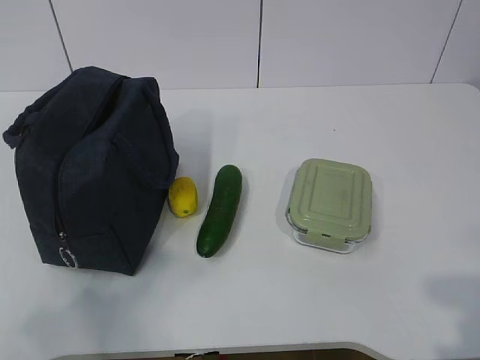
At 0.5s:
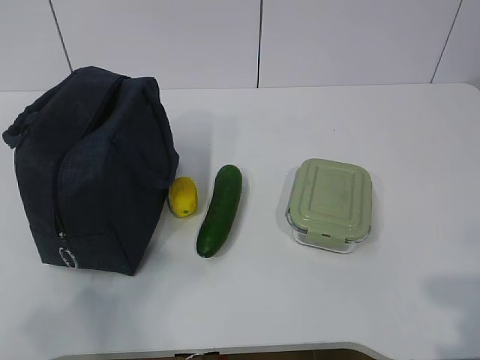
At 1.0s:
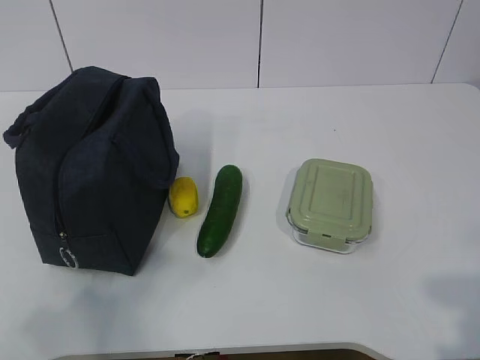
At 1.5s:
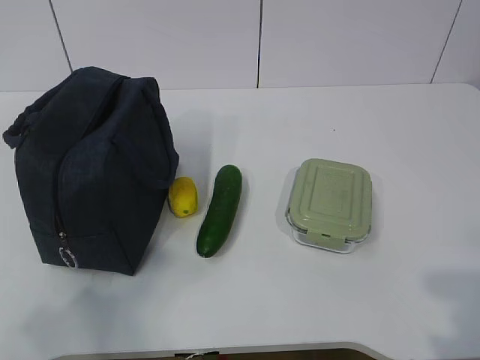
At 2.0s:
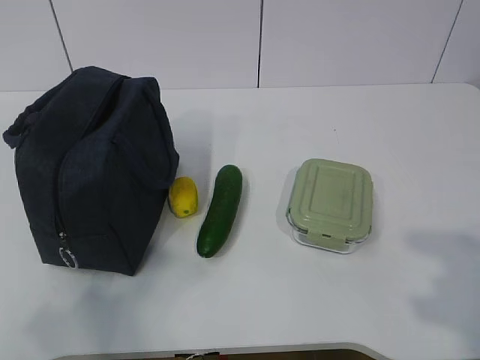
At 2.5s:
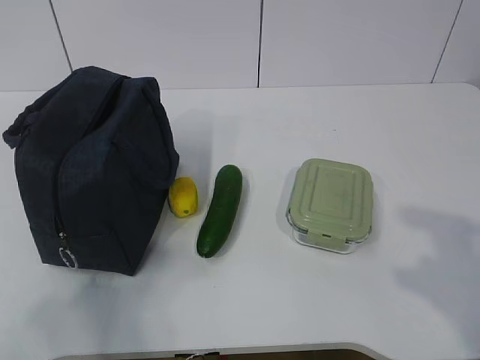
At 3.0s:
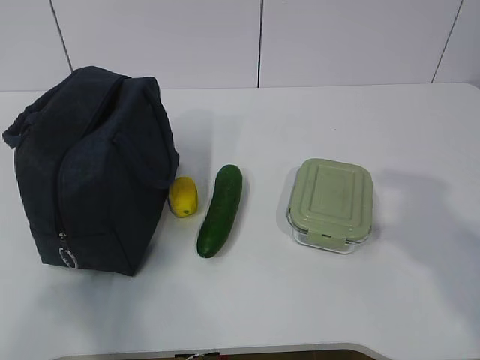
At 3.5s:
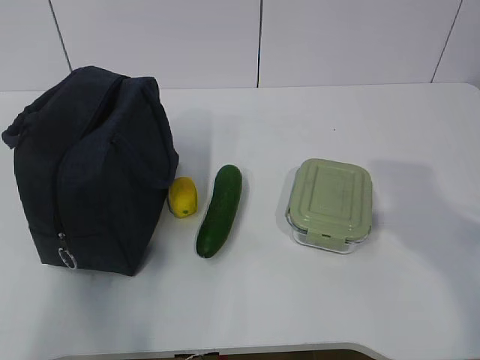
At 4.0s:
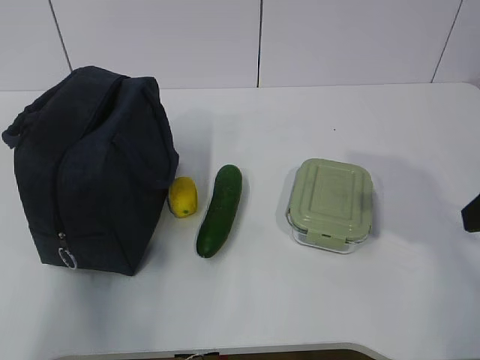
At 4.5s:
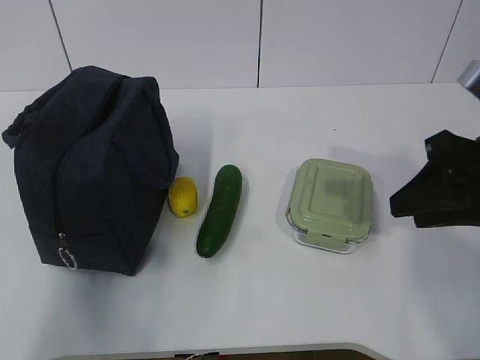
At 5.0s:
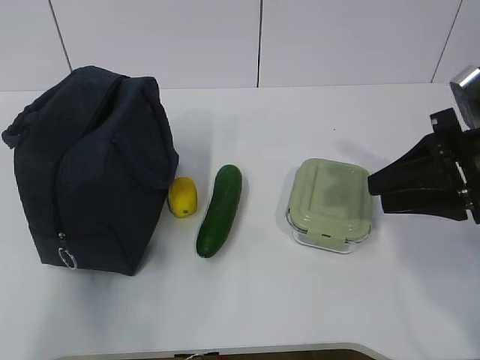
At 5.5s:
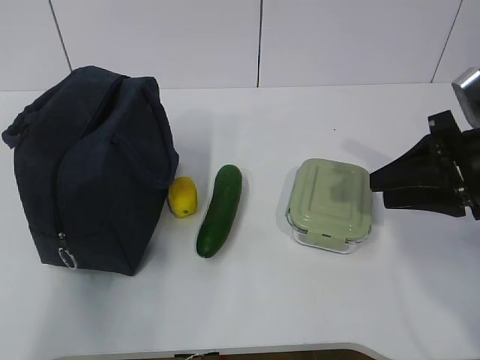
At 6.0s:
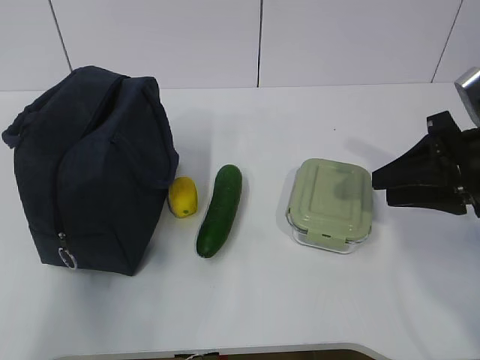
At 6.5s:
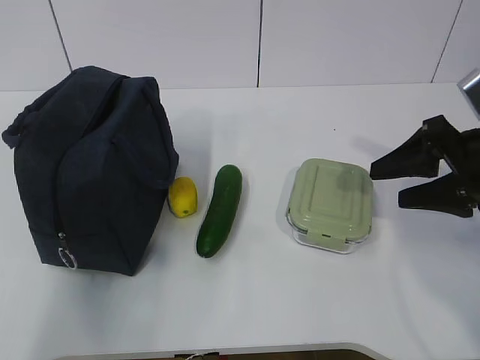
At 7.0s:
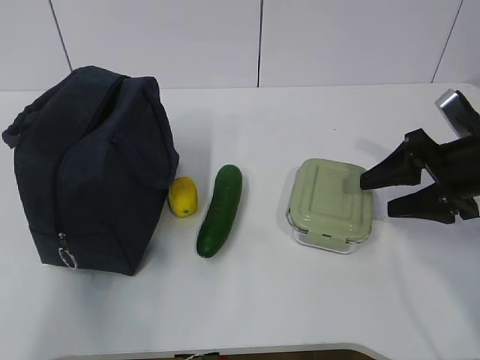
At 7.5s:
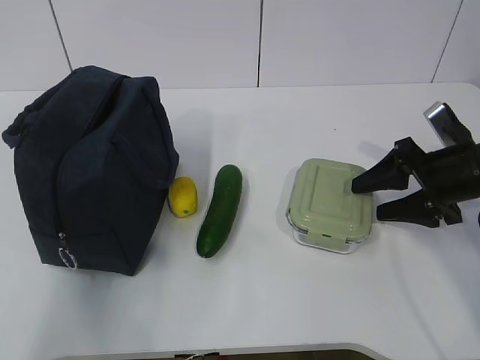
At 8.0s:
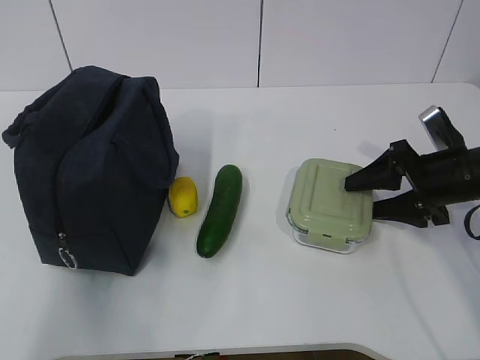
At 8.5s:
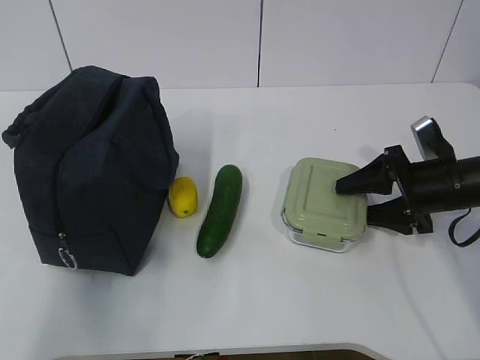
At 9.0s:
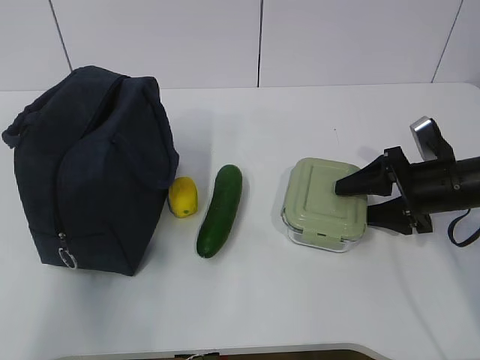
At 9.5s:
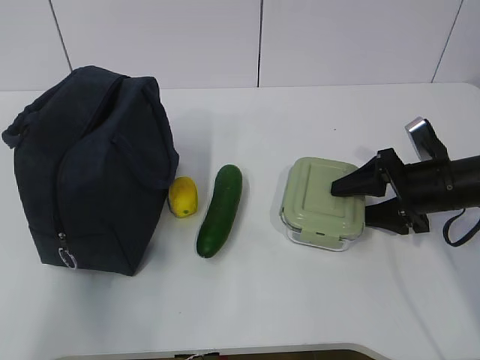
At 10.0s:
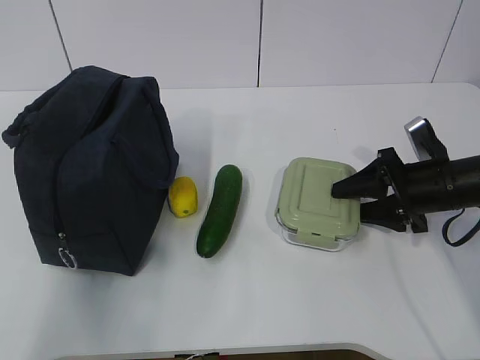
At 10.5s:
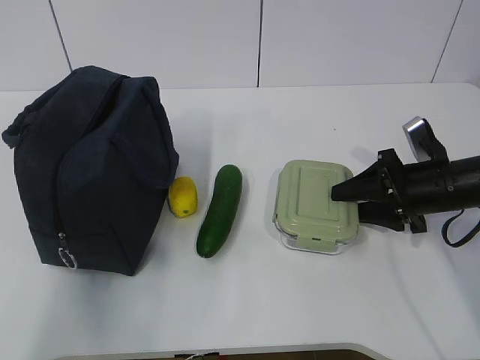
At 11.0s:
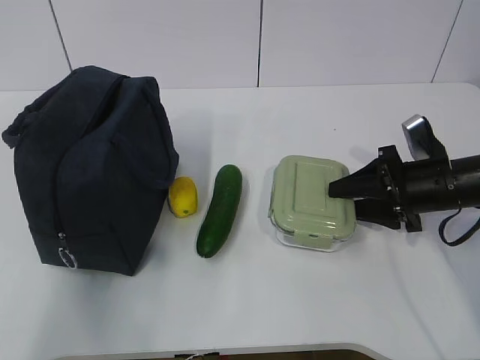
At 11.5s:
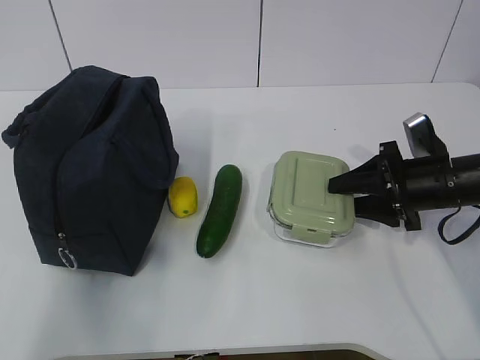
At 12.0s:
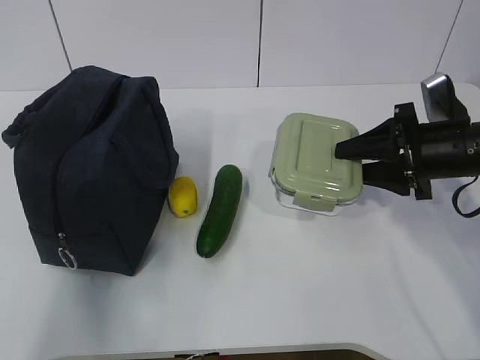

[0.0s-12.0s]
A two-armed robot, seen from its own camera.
Step, 0.0s to 8.5s: Grab the lunch box with your right hand.
2.0s to 4.0s: The left gripper goes approximately 15 cm forward and upward; the right gripper is displaced forward by some 20 cm.
4.0s to 6.0s: The right gripper shifts some 10 cm forward and downward.
6.0s to 8.0s: The right gripper travels downward and forward by some 10 cm, and opens its fingers.
8.0s to 10.0s: The grippers move only a little.
10.0s to 12.0s: The right gripper goes some 5 cm upward.

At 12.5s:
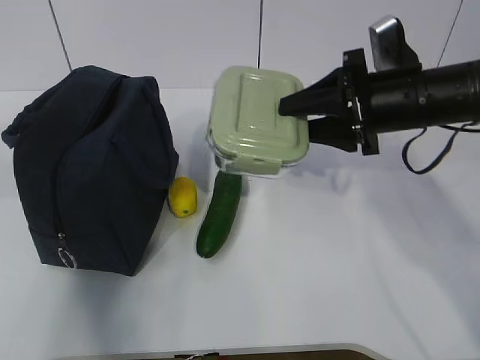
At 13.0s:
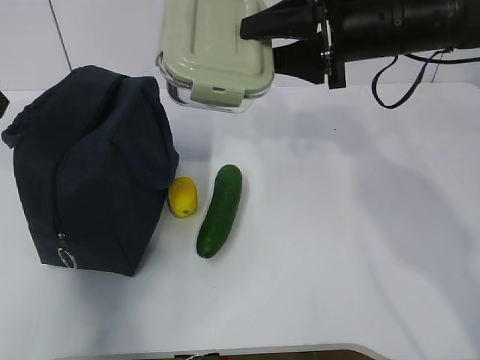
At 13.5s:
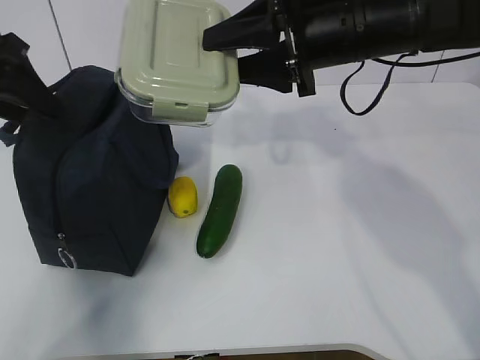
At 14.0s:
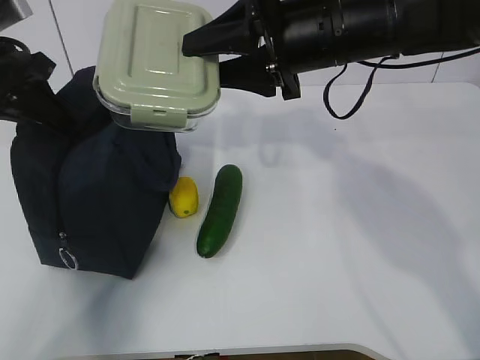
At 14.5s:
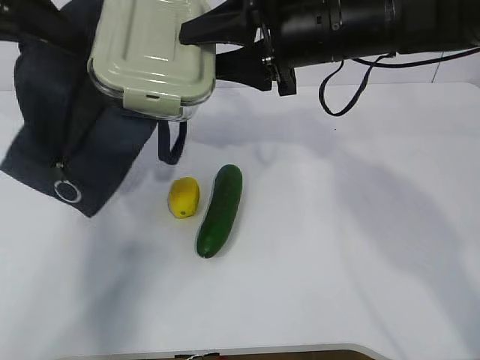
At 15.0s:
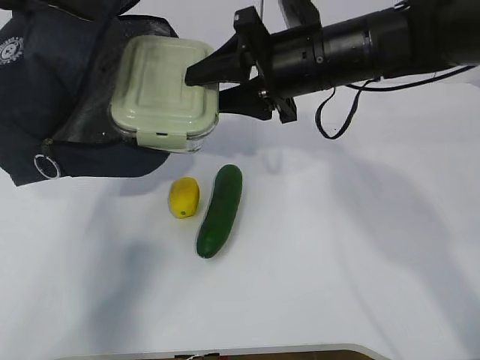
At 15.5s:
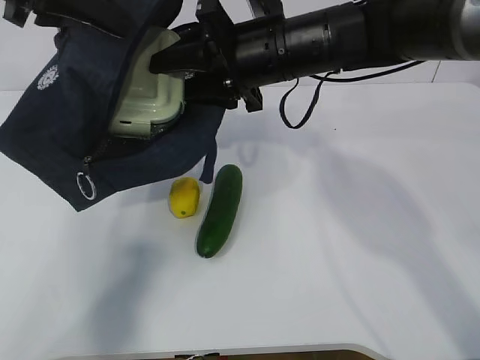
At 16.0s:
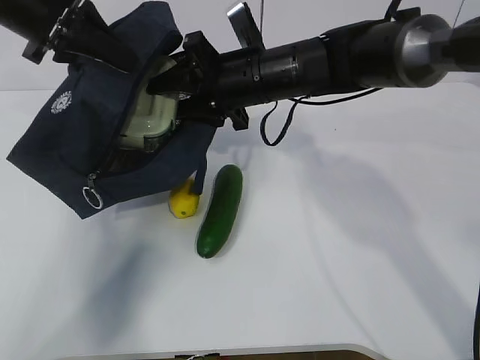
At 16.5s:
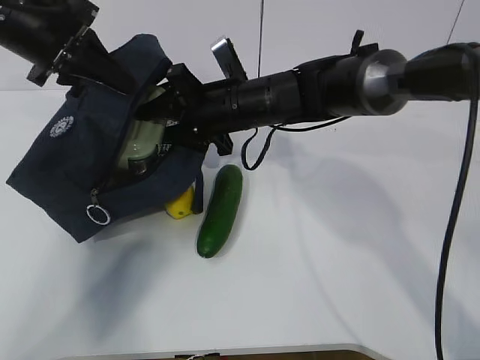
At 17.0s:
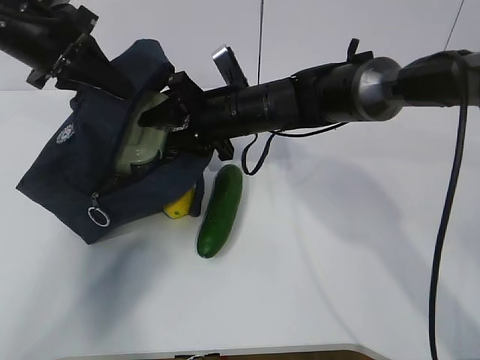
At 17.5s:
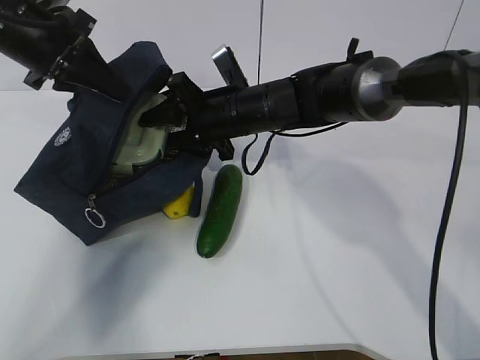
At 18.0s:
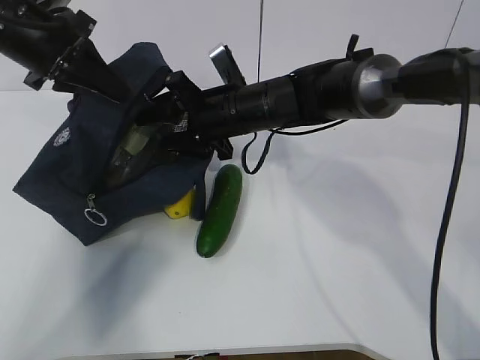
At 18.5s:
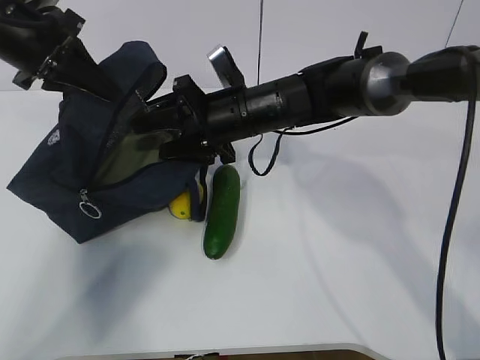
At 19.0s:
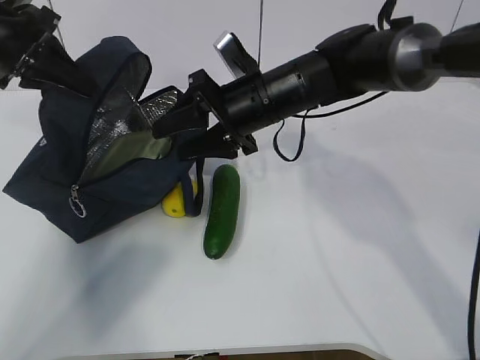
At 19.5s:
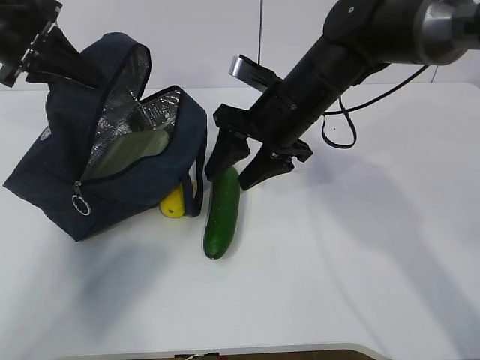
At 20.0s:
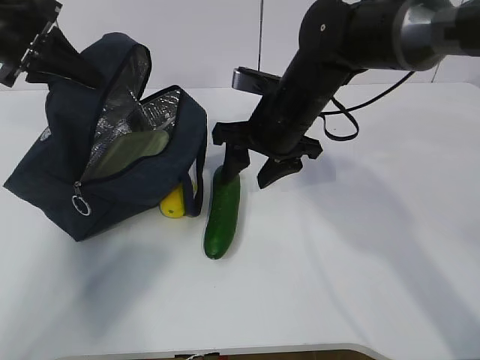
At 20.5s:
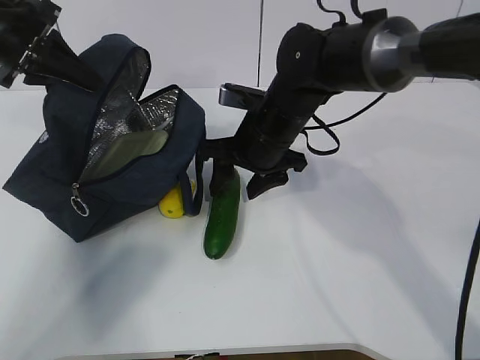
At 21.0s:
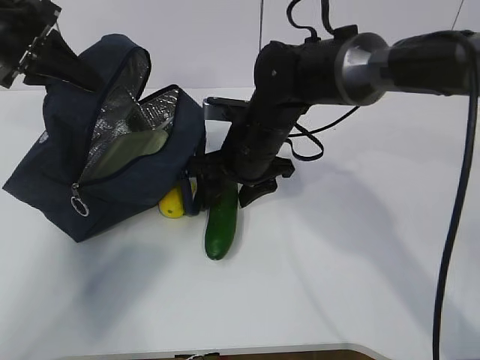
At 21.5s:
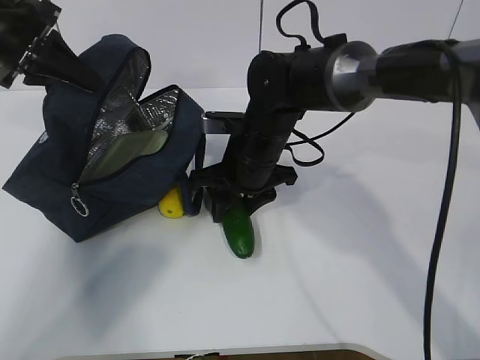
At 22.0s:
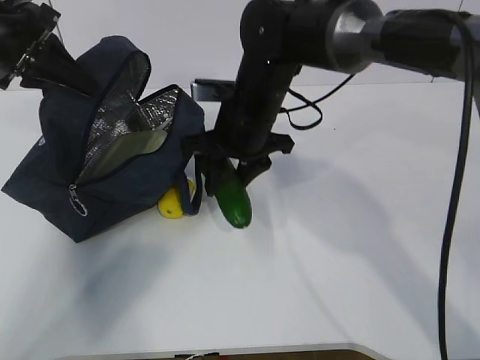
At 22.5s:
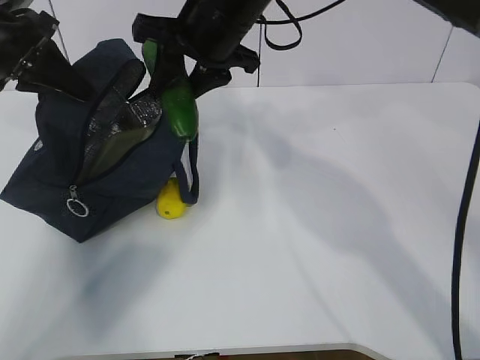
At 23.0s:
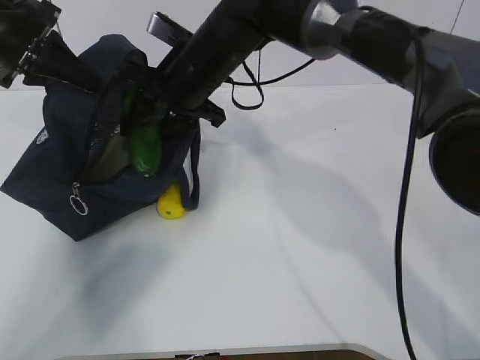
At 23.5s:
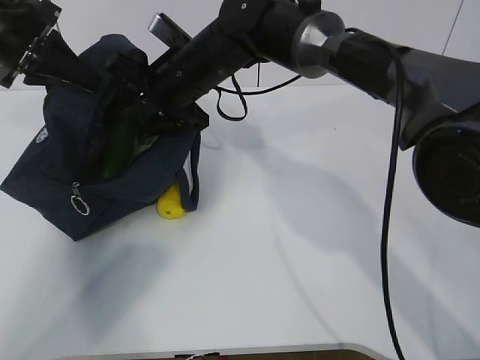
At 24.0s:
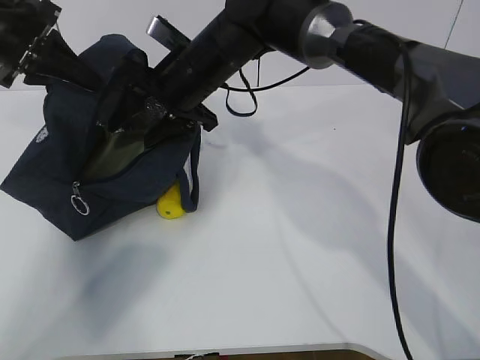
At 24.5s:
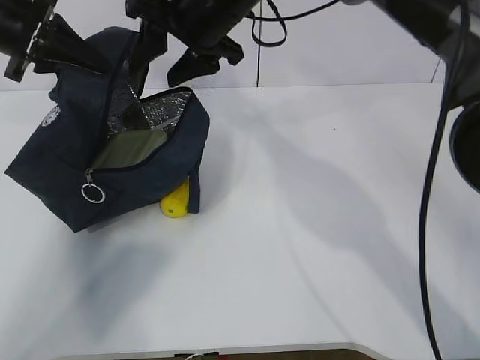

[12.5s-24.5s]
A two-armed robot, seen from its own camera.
Step, 12.5s to 15.0s: Place it into the bag with your right hand.
Step, 15.5s to 17.5s: Grab the cucumber with your right hand.
Step, 18.5s to 19.5s: Place it into the bag with your right hand.
12.5s to 14.5s: The left gripper travels forward by approximately 15 cm, and closes. The right gripper travels to the left and upward by roughly 10 cm.
14.5s to 16.5s: The left gripper goes some 5 cm downward; the right gripper moves downward, to the left and forward, about 15 cm.
16.5s to 18.5s: The grippers make only small movements.
20.5s to 22.5s: The right gripper heads upward, covering some 15 cm.
22.5s to 24.5s: The right gripper reaches approximately 10 cm downward, then returns.

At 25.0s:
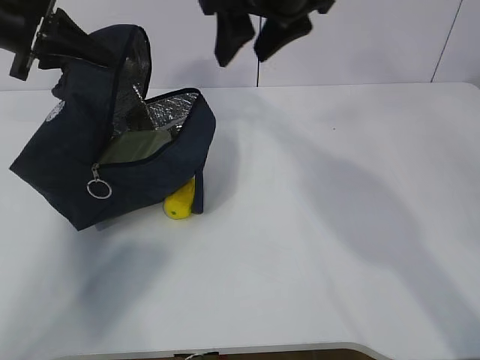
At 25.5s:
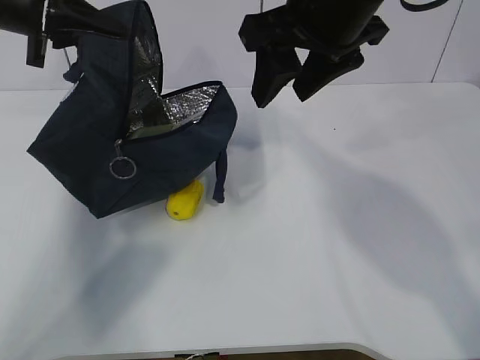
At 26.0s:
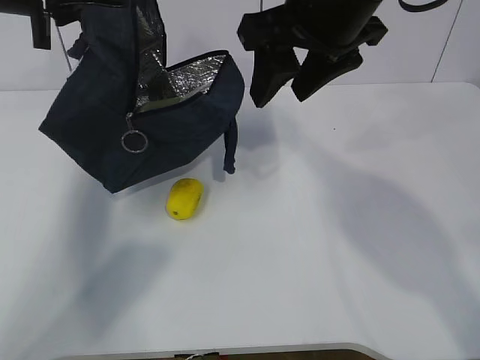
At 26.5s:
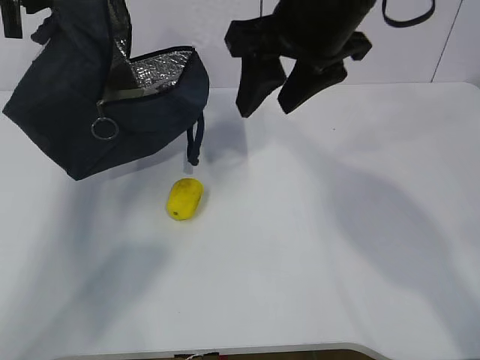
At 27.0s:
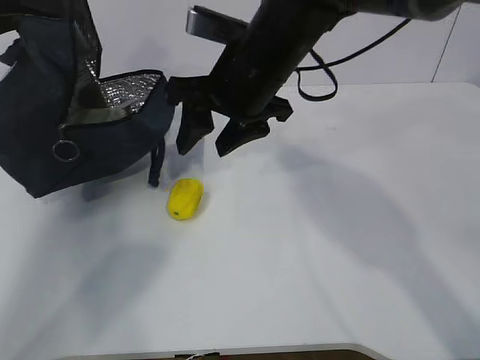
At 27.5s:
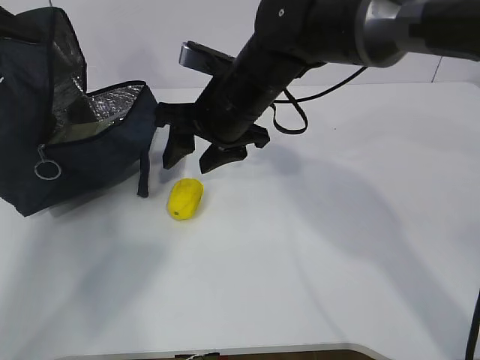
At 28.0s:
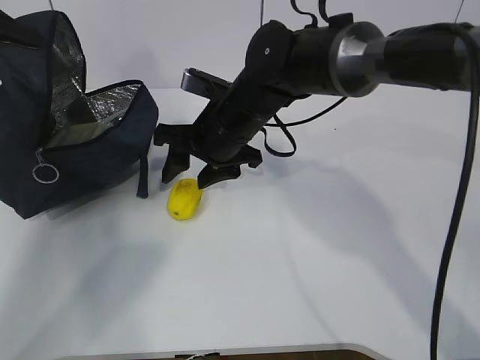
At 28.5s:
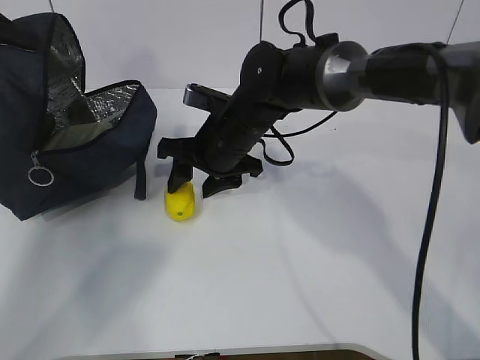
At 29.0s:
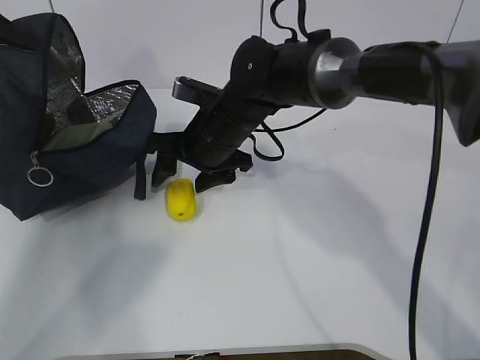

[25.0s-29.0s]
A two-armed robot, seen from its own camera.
Step, 25.5s to 27.5s: Secure the lunch bag with your left hand.
25.0s to 27.0s: The left gripper moves to the left, roughly 5 cm. The right gripper shifts about 10 cm downward.
27.0s to 29.0s: The right gripper is displaced downward by approximately 10 cm.
